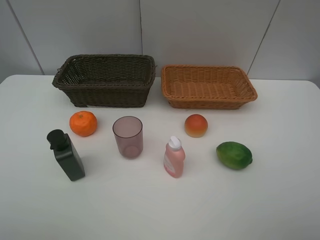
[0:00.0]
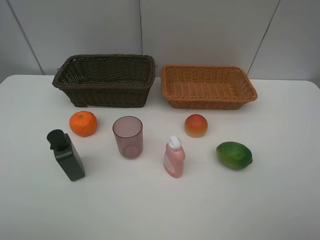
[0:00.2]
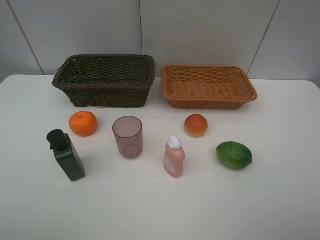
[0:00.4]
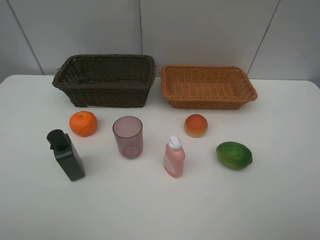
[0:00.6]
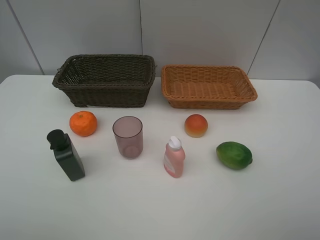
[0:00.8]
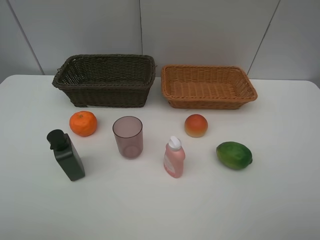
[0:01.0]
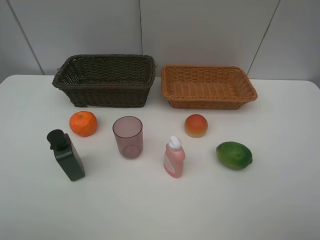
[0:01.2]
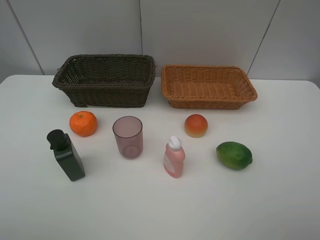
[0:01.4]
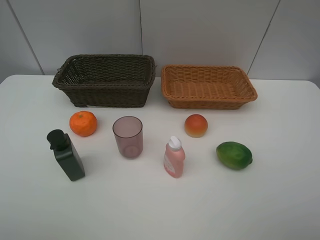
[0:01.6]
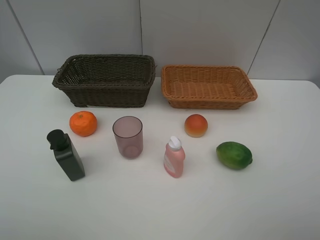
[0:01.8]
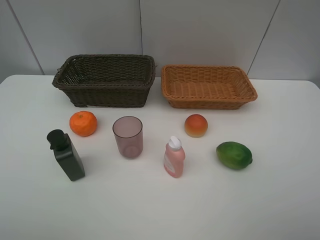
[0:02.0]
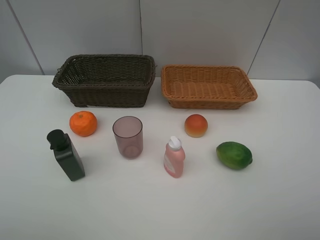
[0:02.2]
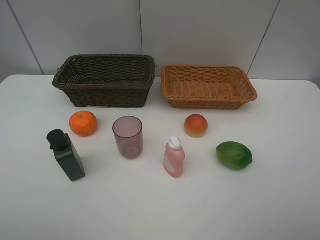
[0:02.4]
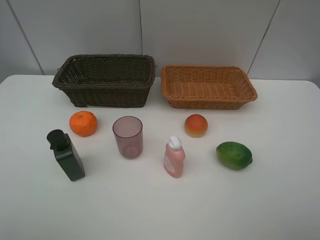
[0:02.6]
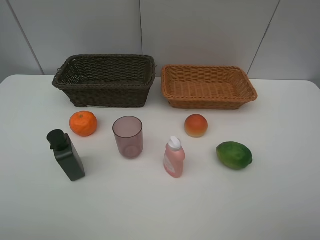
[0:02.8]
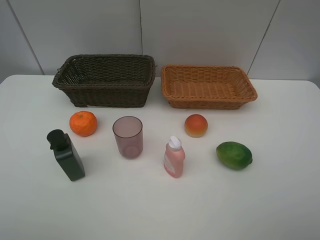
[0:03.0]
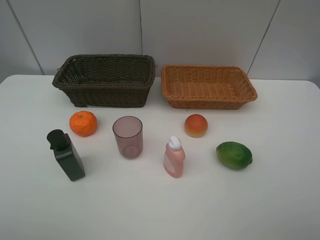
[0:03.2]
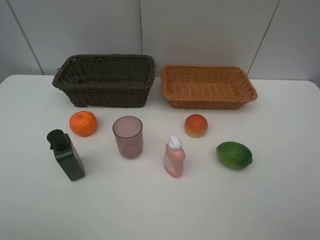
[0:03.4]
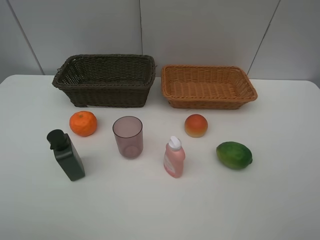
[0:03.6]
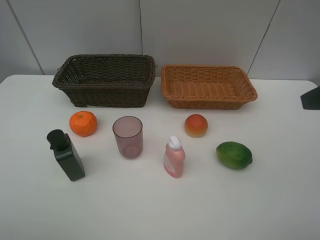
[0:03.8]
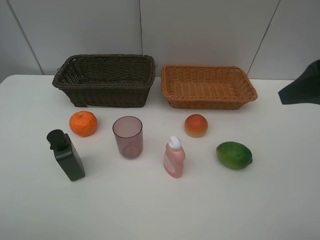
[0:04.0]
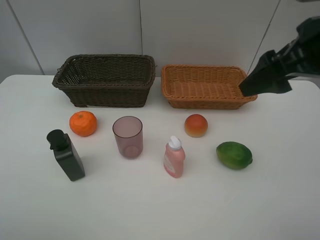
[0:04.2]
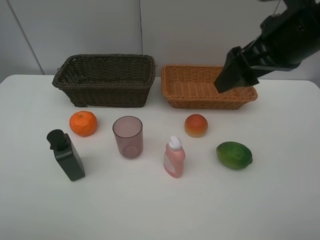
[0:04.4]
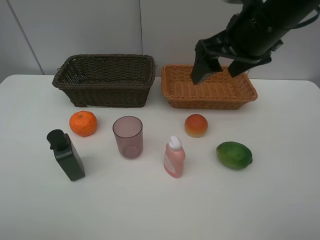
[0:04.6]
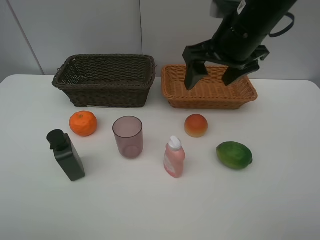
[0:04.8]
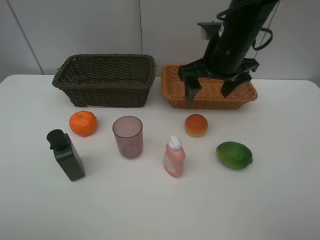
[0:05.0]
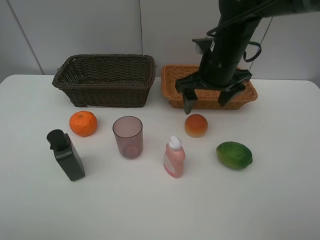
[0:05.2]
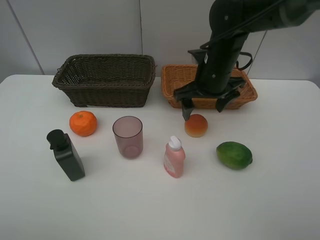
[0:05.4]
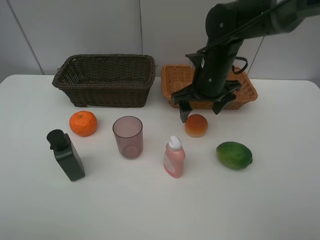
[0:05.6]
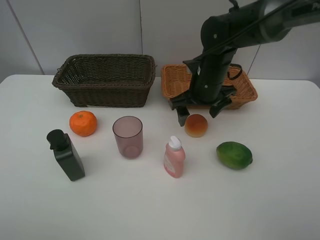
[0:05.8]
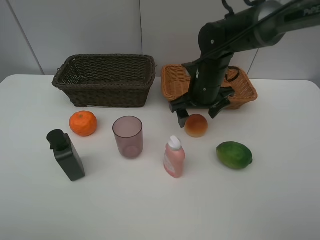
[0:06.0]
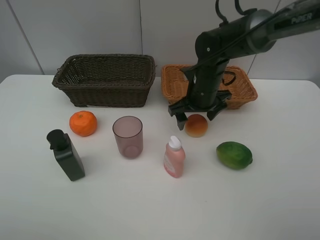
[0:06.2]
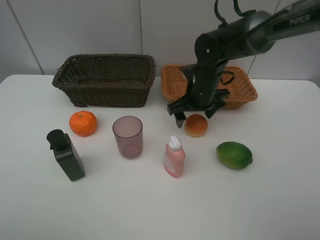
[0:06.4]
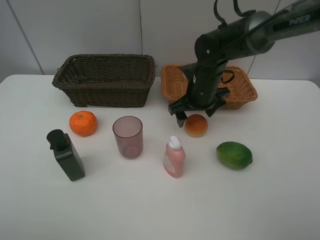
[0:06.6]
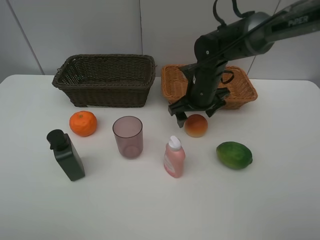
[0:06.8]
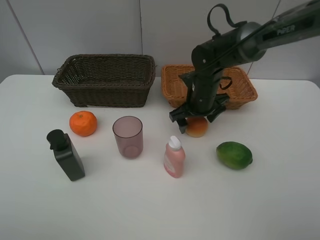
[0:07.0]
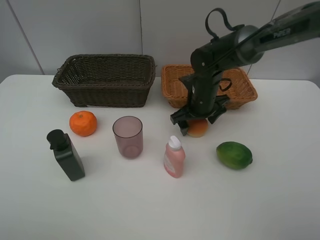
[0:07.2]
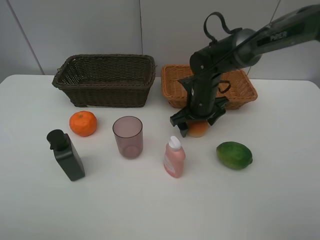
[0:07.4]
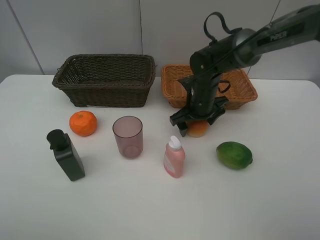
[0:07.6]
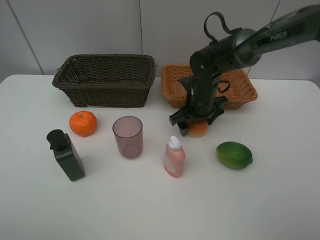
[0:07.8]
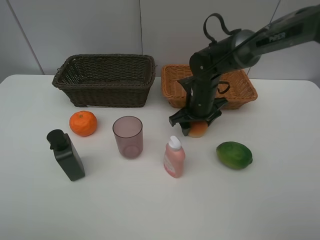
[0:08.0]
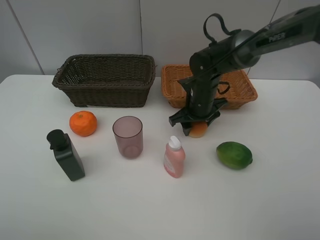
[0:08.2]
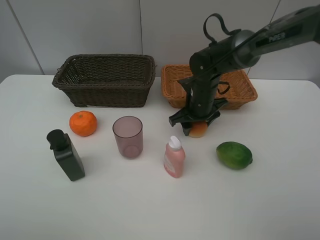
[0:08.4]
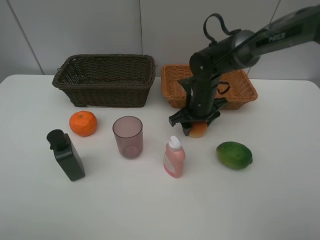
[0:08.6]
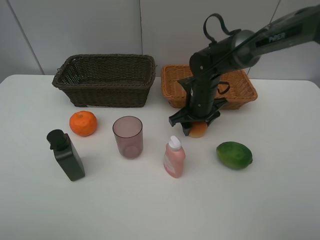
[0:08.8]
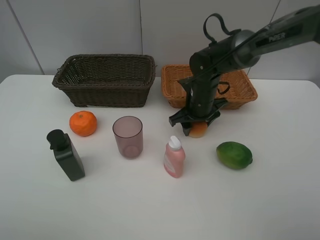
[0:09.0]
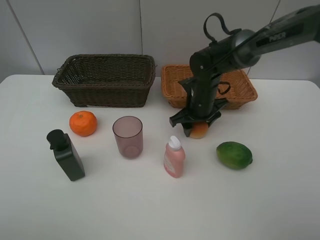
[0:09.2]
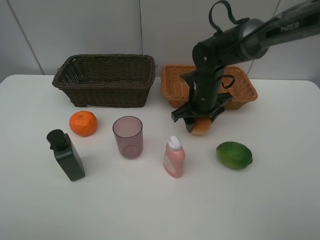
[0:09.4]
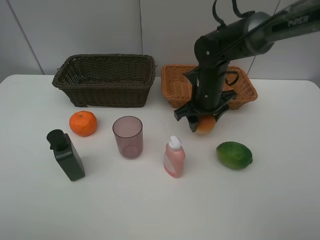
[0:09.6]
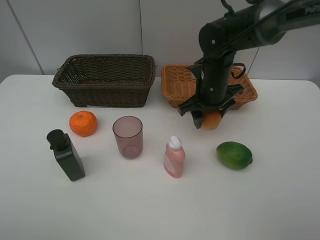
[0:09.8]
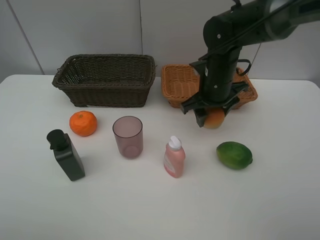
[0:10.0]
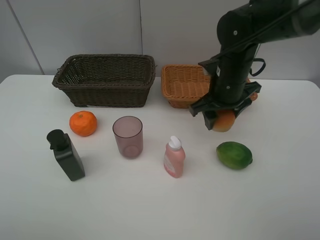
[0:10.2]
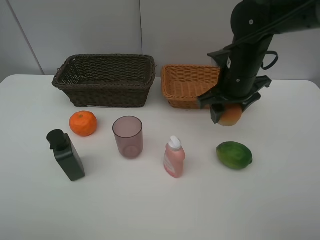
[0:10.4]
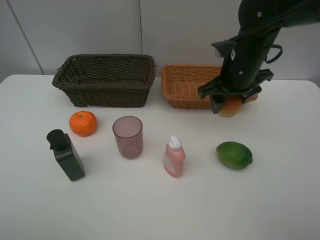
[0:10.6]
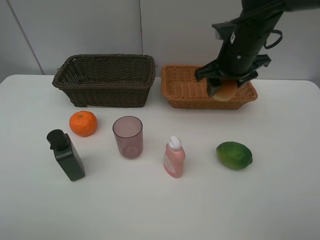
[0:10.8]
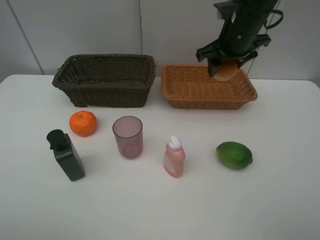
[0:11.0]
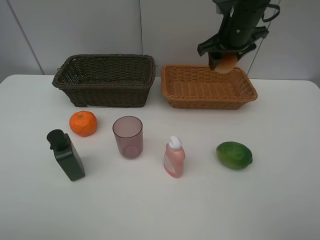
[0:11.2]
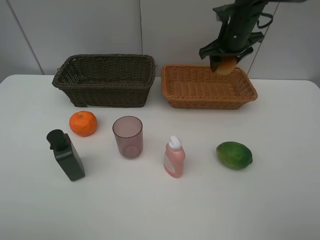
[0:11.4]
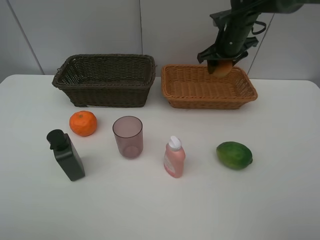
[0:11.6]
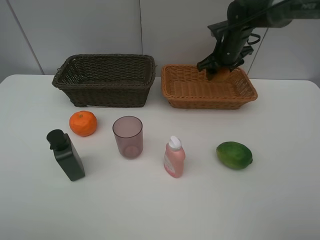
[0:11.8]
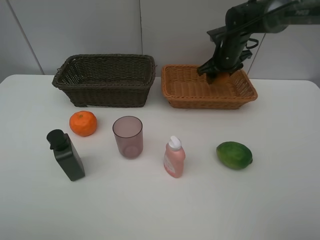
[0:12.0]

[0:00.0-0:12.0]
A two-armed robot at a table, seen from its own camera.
Task of the whole recording: place multiple objects separately in different baskets.
0:00.0 to 0:01.6: Both grippers stay put.
0:03.0 to 0:04.4: The right gripper shifts approximately 25 cm forward and to the left.
0:04.4 to 0:06.0: The right gripper moves downward and forward, roughly 20 cm.
0:06.0 to 0:07.6: The grippers stay close to where they were, moving slightly.
0:07.6 to 0:09.0: The right gripper closes up.
0:09.0 to 0:10.4: The right gripper moves upward, approximately 10 cm.
0:10.4 to 0:12.0: The right gripper heads forward, covering approximately 15 cm.

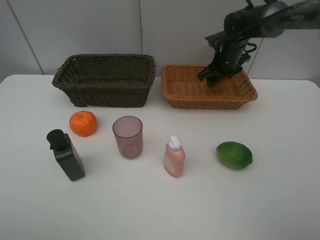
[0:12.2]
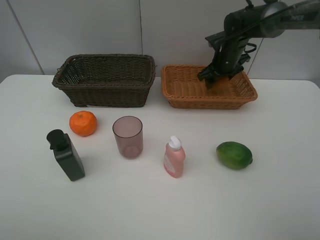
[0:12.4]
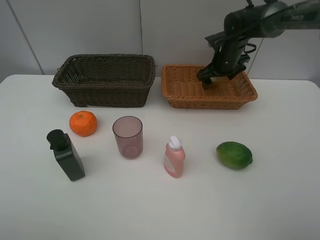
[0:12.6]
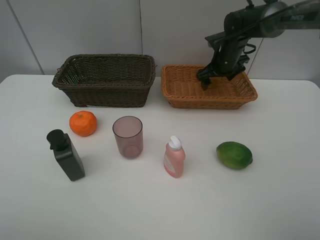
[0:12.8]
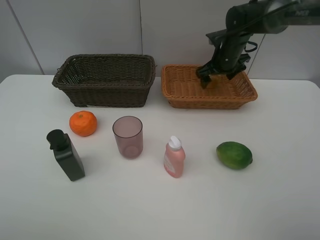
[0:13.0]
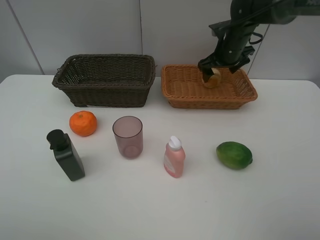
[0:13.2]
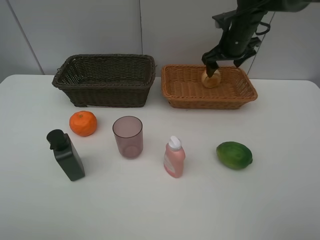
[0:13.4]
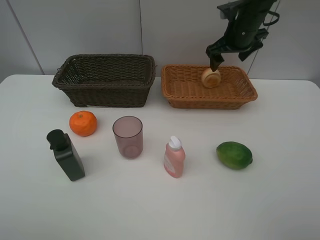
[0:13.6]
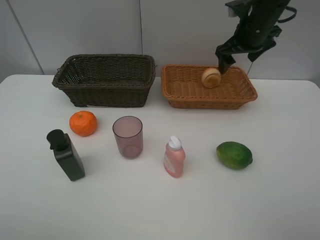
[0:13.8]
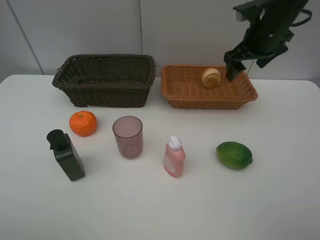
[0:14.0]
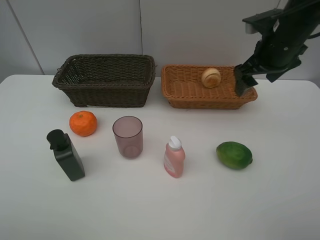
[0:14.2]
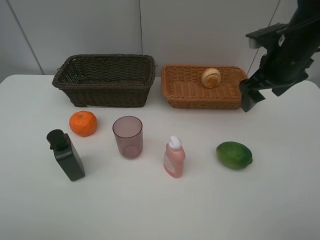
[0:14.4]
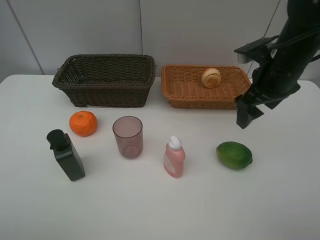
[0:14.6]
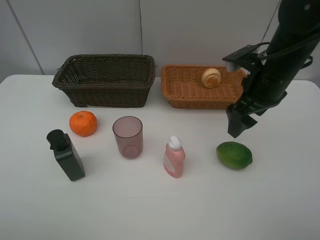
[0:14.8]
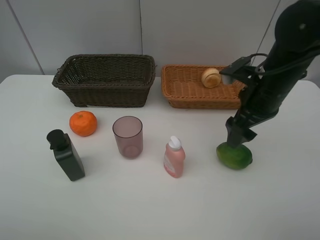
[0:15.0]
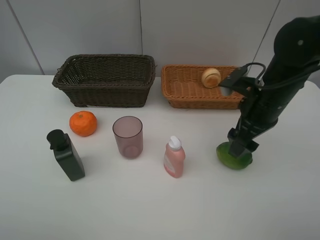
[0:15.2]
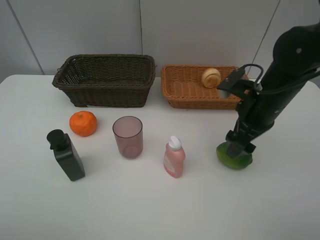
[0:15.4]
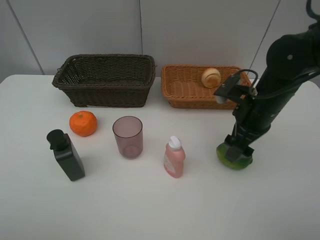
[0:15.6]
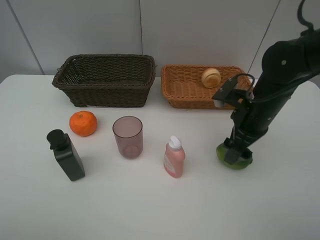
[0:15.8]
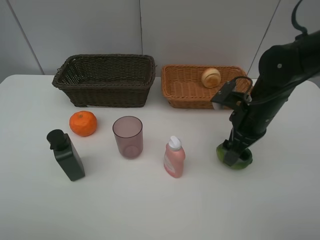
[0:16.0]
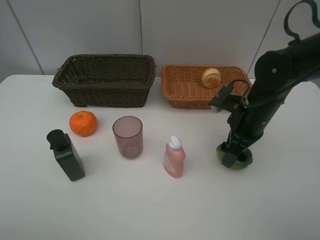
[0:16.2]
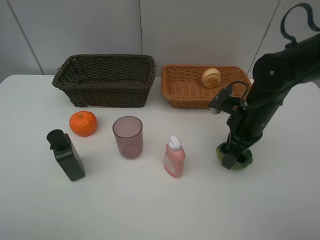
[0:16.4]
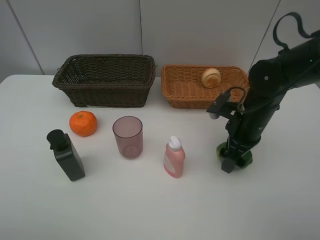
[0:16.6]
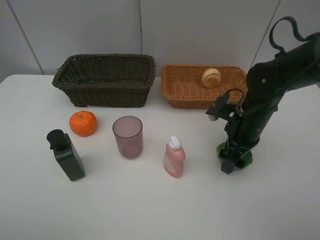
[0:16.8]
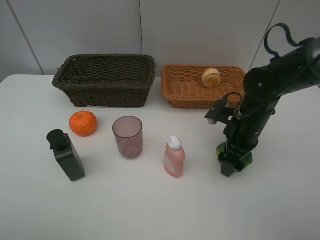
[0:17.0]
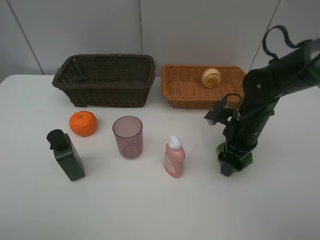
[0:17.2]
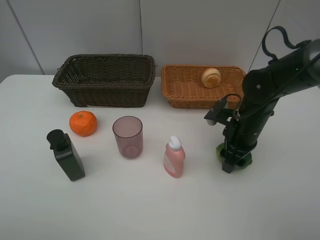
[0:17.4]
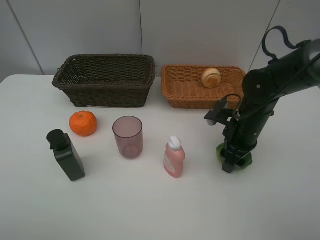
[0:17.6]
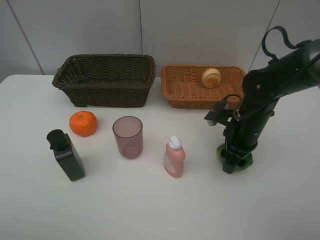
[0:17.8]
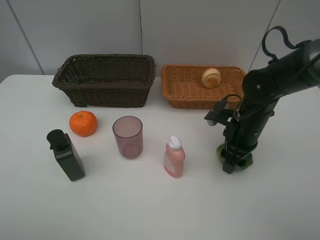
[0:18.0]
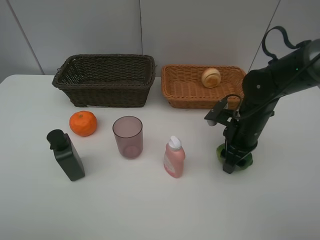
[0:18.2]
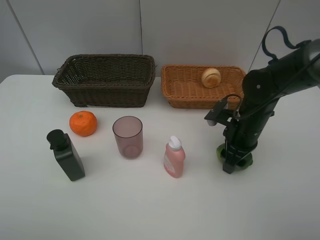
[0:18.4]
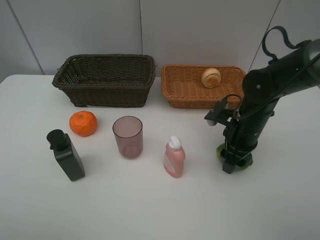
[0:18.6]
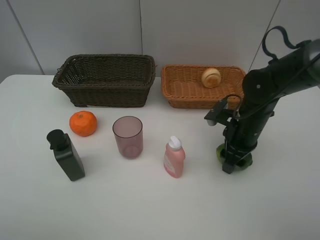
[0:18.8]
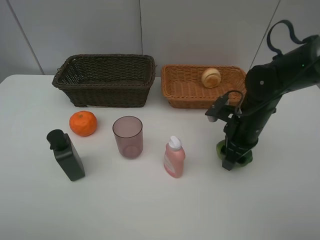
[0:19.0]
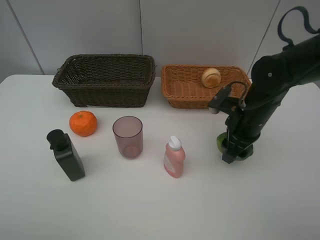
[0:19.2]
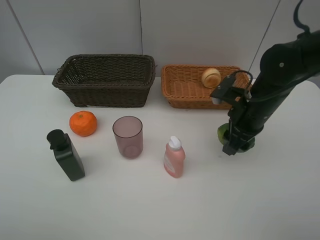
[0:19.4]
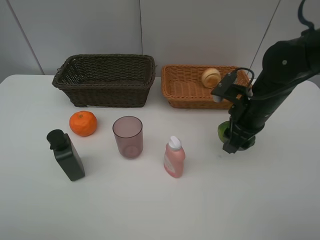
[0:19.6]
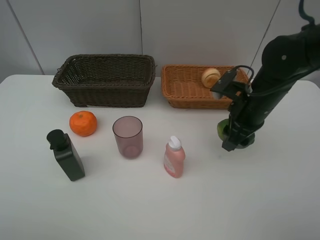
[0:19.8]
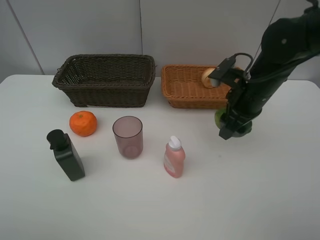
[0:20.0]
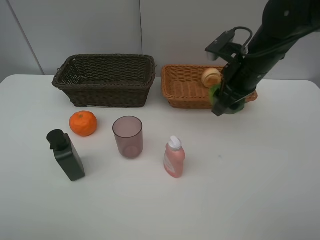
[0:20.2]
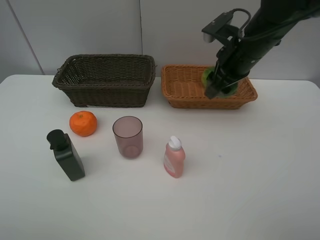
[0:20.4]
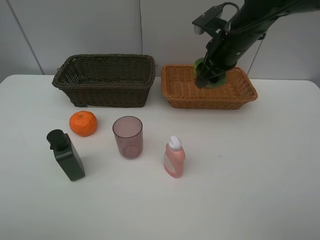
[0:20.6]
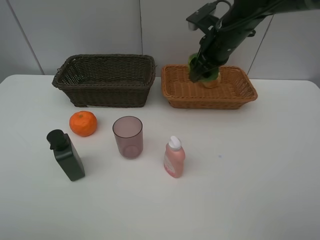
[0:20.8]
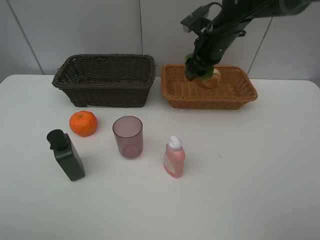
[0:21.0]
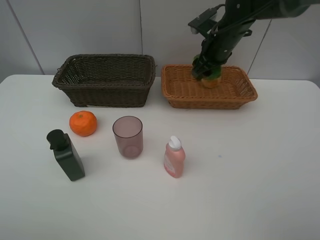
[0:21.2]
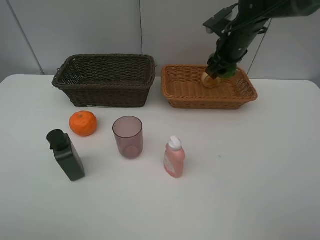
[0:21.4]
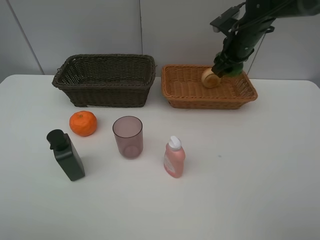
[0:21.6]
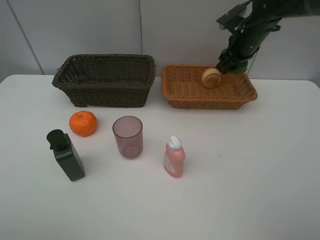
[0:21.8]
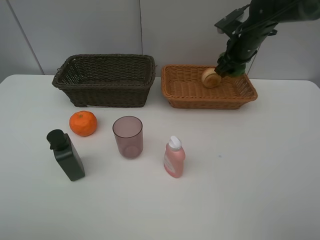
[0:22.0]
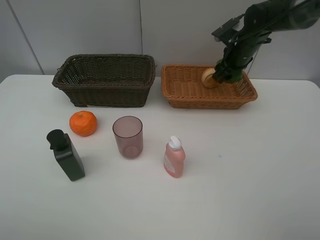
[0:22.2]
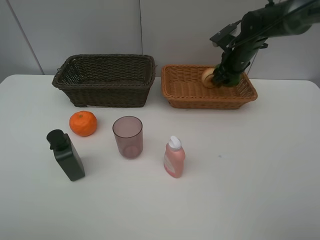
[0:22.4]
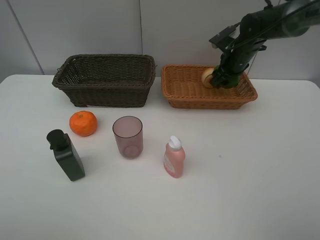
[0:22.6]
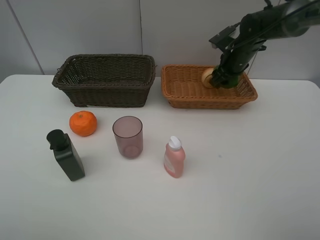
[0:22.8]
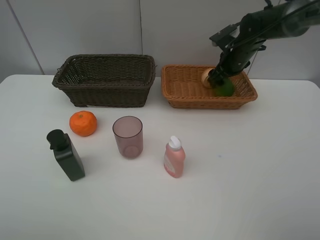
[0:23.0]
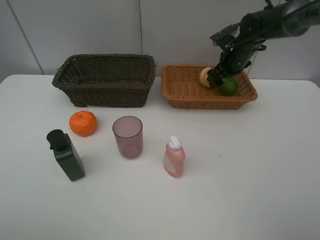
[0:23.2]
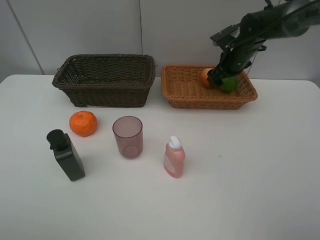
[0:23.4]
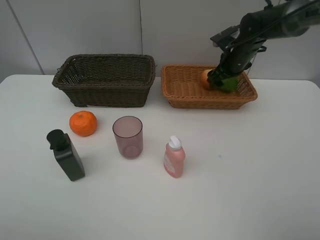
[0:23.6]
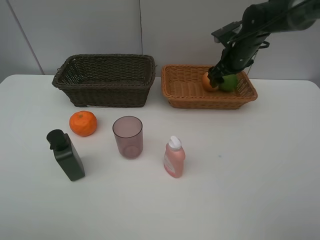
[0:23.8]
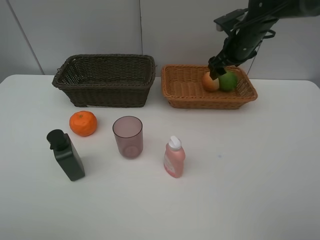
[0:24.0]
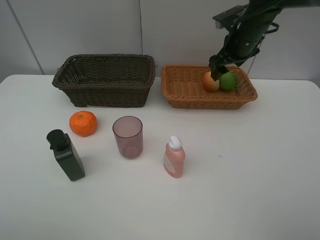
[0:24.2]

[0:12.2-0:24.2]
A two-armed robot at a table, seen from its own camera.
Task of the whole recording: place multiple objects separately in different baskets.
0:12.2 to 0:13.8: The right gripper shifts some 15 cm upward and backward, and opens up.
0:13.8 to 0:15.2: The right gripper goes roughly 15 cm backward and downward.
0:15.2 to 0:16.6: The right gripper moves downward, some 5 cm.
0:16.6 to 0:18.2: The right gripper closes its fingers.
0:18.2 to 0:19.8: The right gripper goes some 5 cm upward.
0:19.8 to 0:21.2: The right gripper goes some 15 cm forward.
0:21.2 to 0:22.6: The right gripper moves to the right, approximately 5 cm.
0:22.6 to 0:24.2: The right gripper travels upward by about 5 cm, and opens up.
